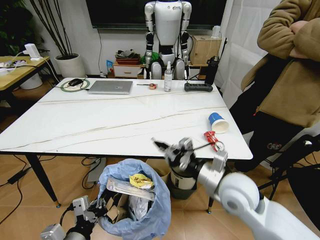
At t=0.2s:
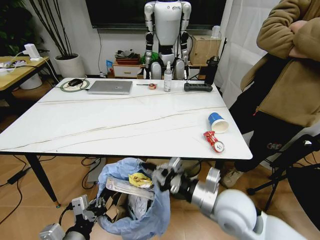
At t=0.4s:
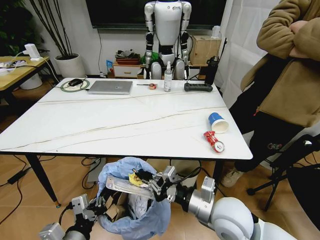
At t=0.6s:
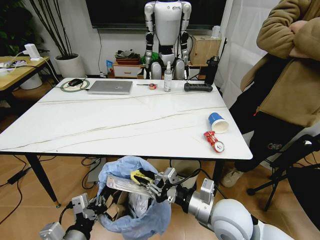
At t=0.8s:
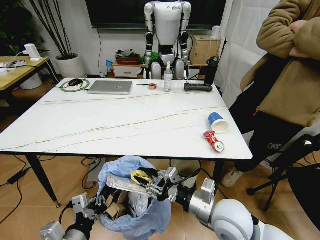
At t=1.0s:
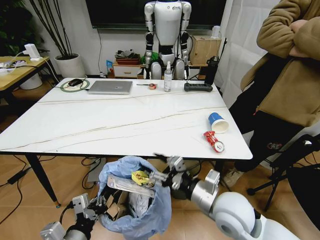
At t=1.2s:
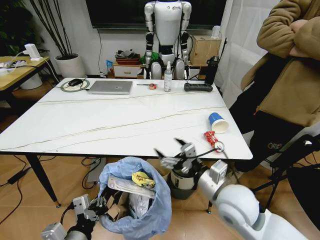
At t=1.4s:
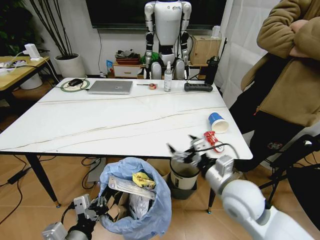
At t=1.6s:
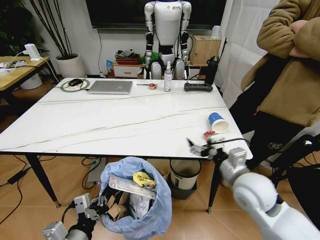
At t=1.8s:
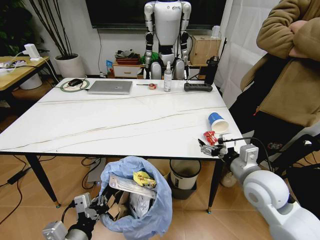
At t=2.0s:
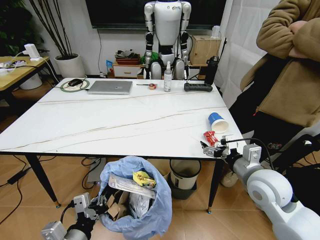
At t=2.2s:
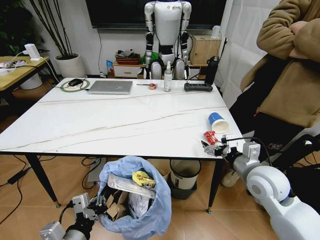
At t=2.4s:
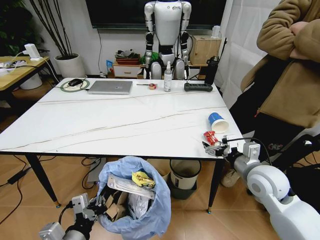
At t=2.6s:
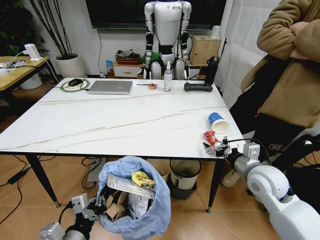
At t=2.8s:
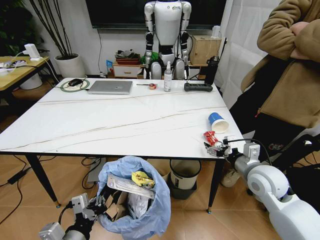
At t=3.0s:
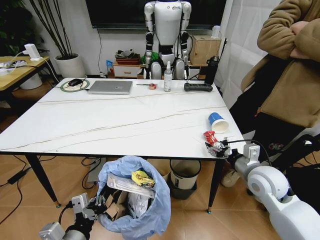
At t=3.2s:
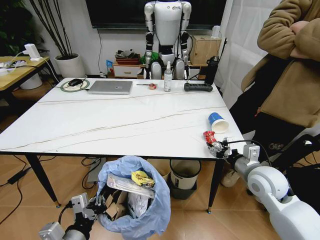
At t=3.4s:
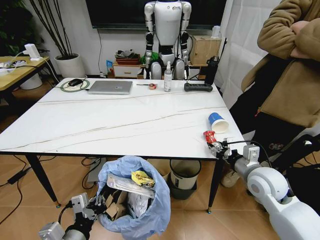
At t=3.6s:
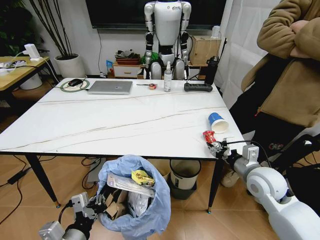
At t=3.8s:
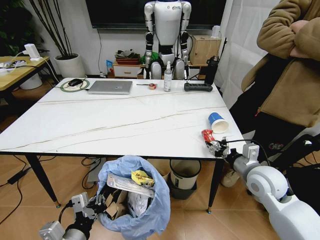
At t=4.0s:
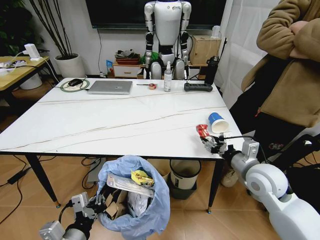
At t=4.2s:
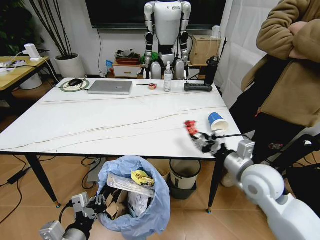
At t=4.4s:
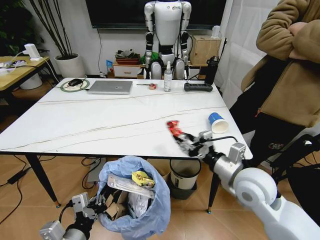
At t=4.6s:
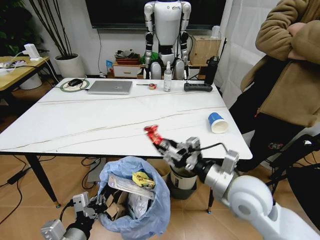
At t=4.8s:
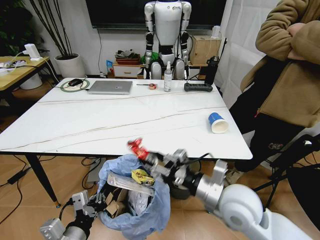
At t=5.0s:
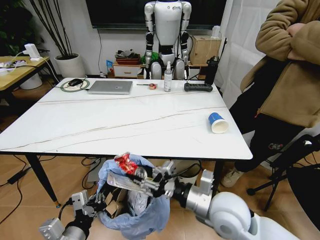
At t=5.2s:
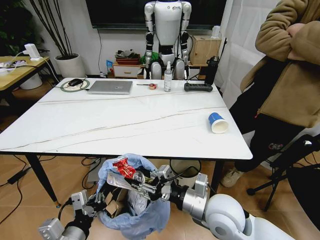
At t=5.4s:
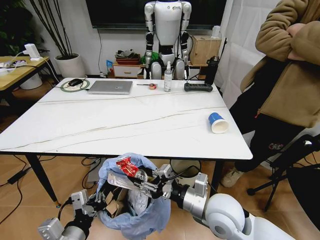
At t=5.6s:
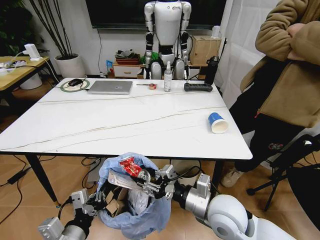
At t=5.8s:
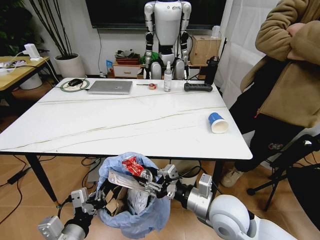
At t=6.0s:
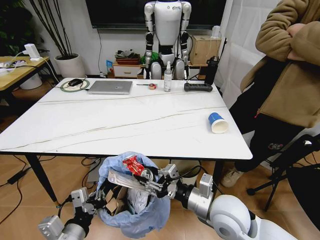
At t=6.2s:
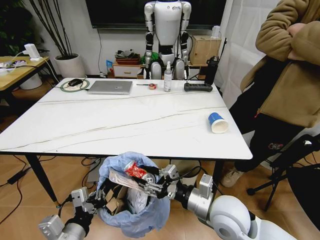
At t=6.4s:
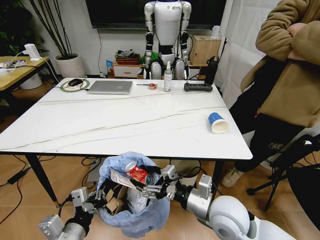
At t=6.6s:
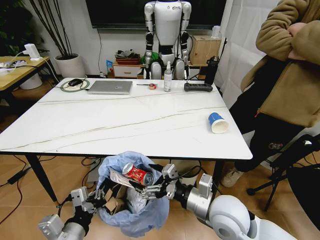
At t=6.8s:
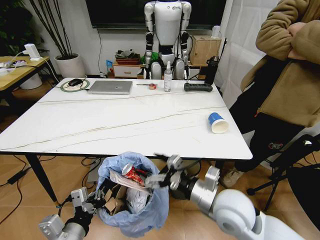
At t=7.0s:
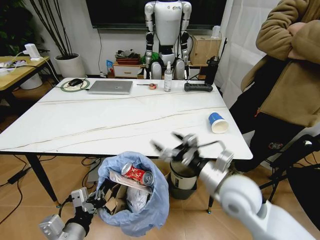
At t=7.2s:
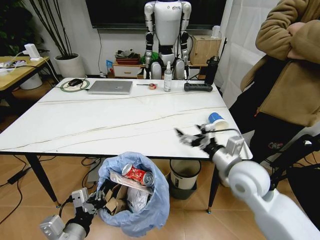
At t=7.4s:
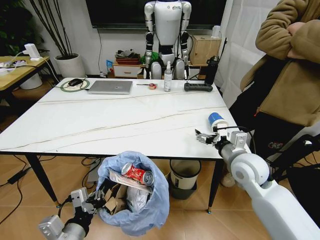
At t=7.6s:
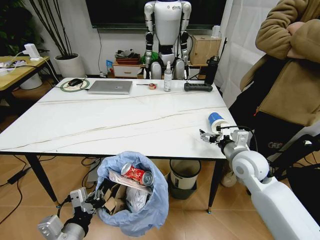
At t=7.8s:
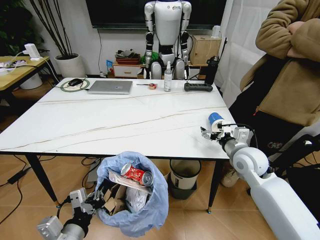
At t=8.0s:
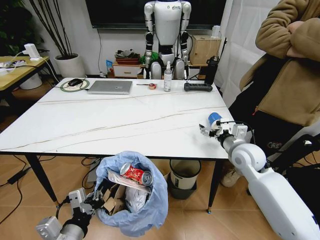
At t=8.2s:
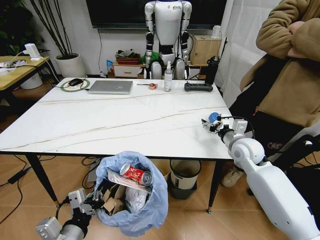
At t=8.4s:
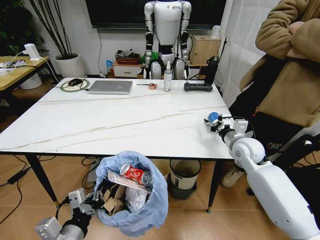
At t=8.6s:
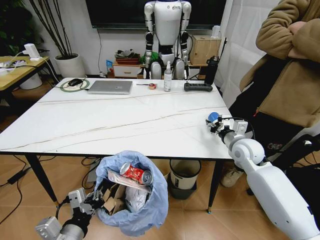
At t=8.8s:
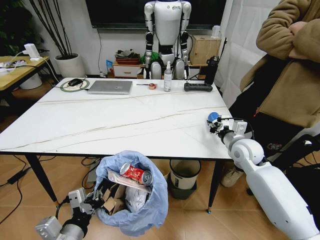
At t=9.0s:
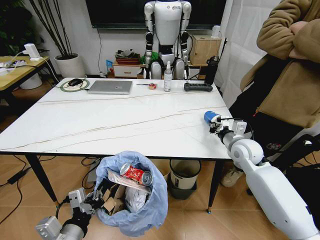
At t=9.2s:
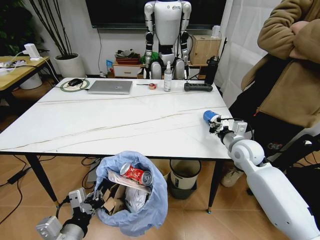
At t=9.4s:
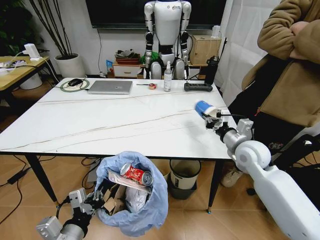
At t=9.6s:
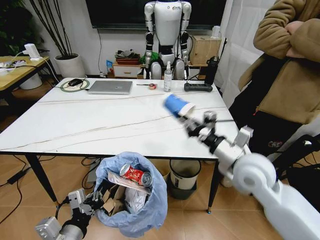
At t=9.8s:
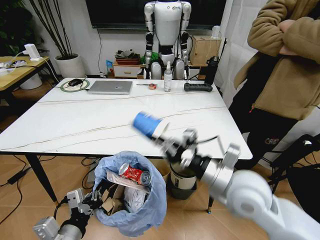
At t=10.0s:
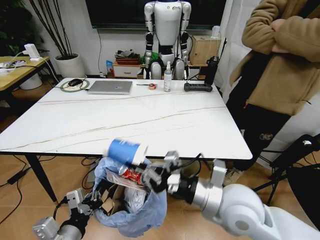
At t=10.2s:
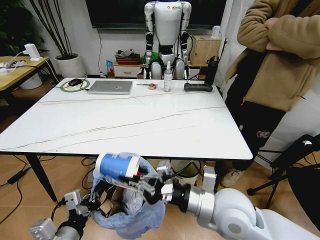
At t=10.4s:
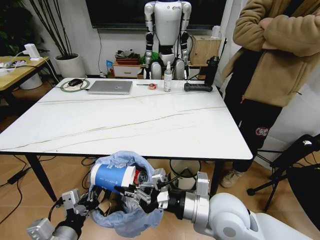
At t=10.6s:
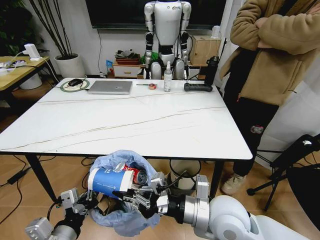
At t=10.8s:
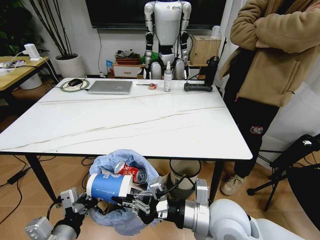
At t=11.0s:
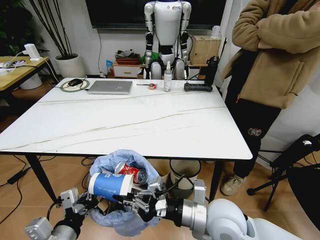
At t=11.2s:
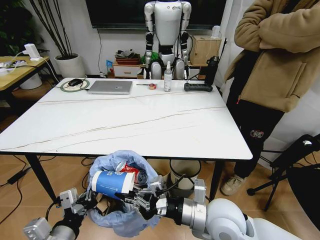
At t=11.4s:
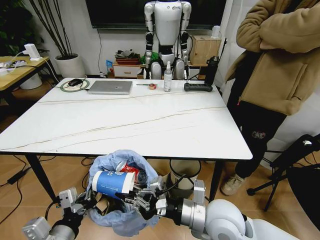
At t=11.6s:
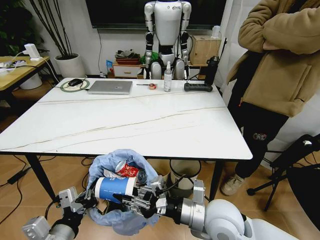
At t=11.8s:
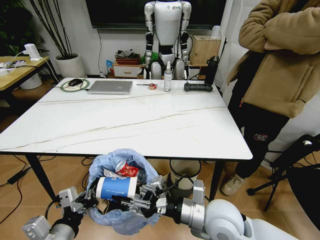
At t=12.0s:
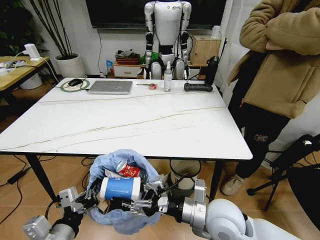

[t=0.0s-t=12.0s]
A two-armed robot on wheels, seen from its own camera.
Task of the whole recording: Pick up the trash bin and place the trash from the table into it.
t=0.0s to t=1.6s: The right gripper opens up.
t=1.6s to t=3.0s: The right gripper is displaced to the right by about 5 cm.
t=3.0s to t=4.4s: The right gripper moves to the left, about 10 cm.
t=4.4s to t=6.0s: The right gripper goes roughly 10 cm to the left and backward.
t=6.0s to t=7.6s: The right gripper travels forward and to the right by some 15 cm, and opens.
t=7.6s to t=9.0s: The right gripper moves forward, some 5 cm, and closes.
t=9.0s to t=10.4s: The right gripper moves backward and to the left, some 25 cm.
t=10.4s to t=12.0s: The right gripper opens.

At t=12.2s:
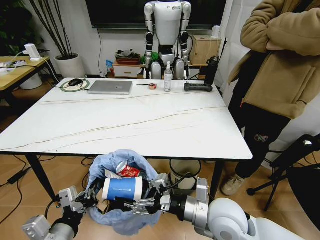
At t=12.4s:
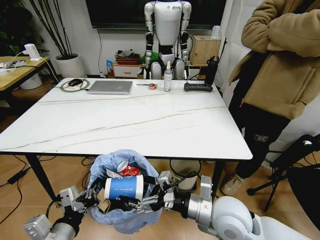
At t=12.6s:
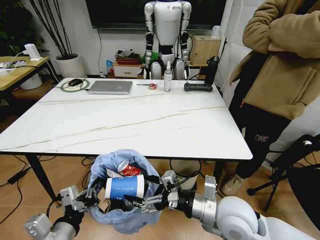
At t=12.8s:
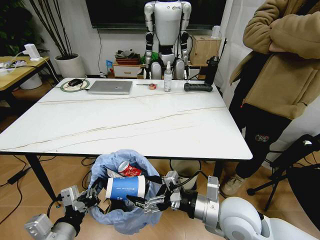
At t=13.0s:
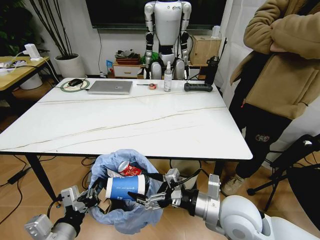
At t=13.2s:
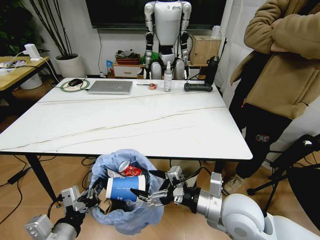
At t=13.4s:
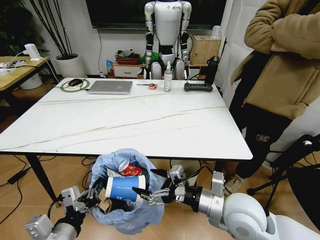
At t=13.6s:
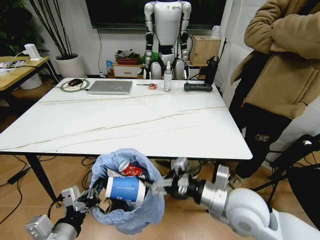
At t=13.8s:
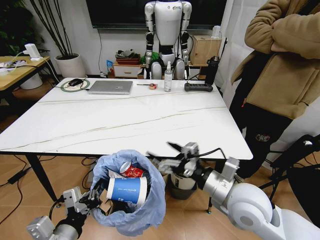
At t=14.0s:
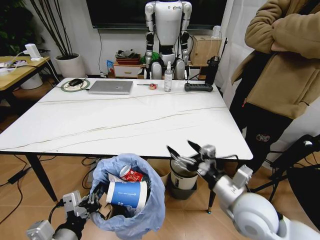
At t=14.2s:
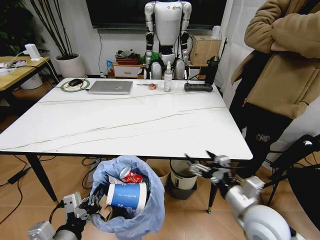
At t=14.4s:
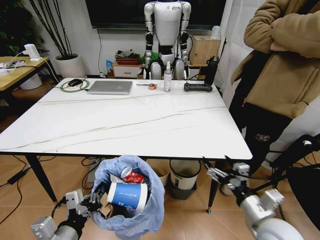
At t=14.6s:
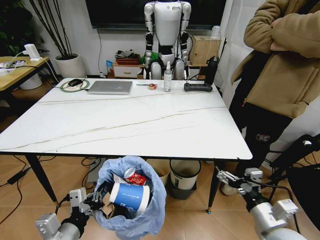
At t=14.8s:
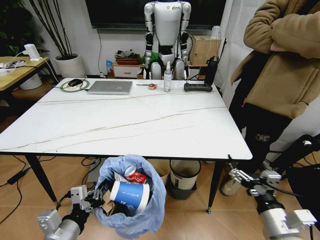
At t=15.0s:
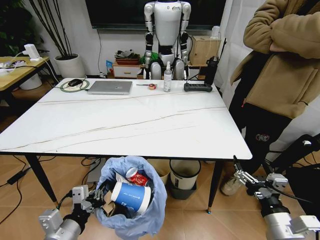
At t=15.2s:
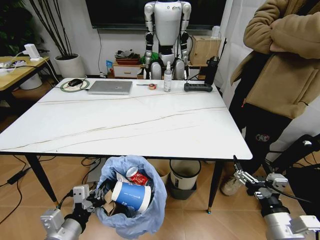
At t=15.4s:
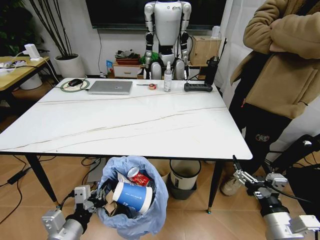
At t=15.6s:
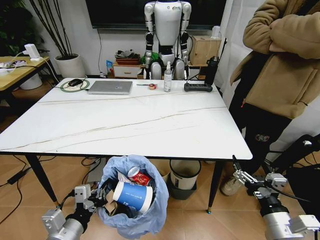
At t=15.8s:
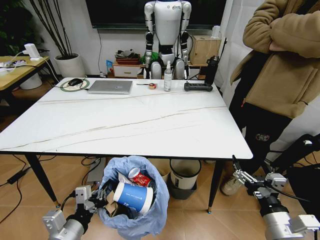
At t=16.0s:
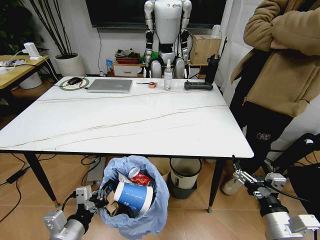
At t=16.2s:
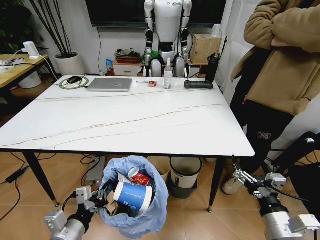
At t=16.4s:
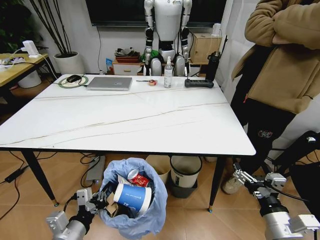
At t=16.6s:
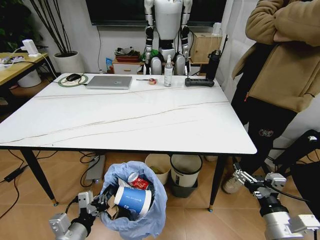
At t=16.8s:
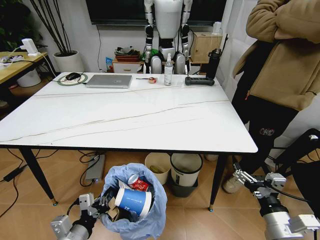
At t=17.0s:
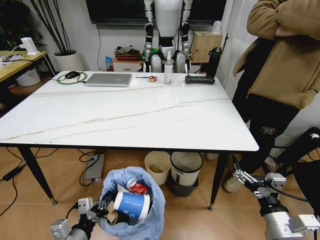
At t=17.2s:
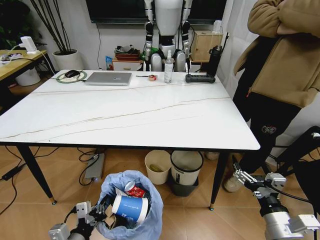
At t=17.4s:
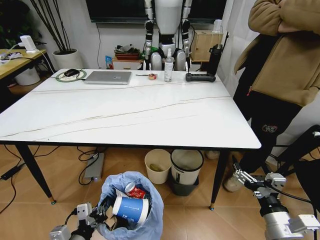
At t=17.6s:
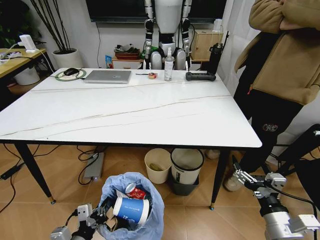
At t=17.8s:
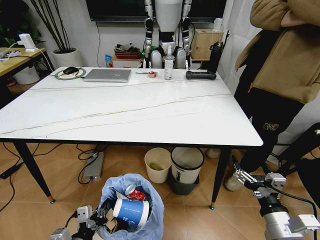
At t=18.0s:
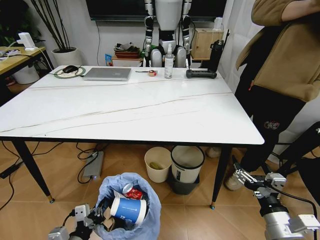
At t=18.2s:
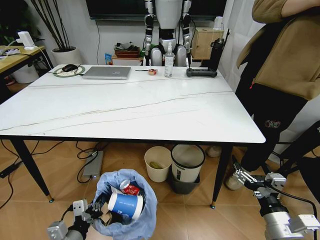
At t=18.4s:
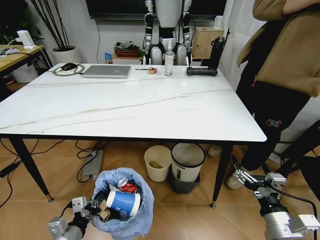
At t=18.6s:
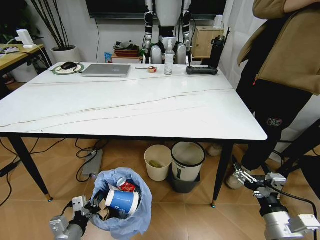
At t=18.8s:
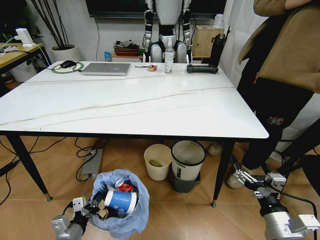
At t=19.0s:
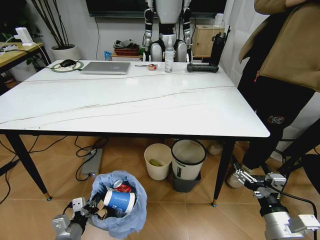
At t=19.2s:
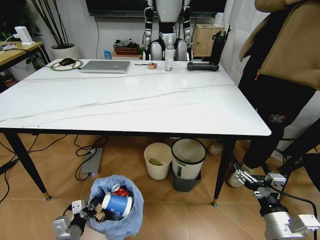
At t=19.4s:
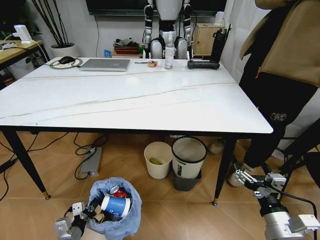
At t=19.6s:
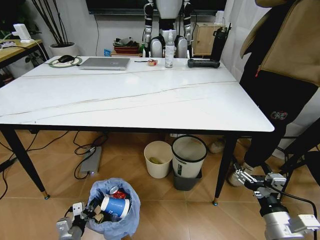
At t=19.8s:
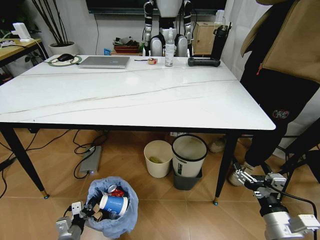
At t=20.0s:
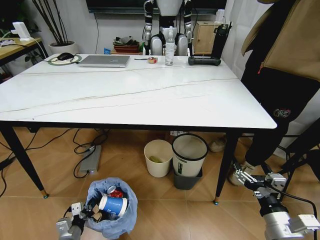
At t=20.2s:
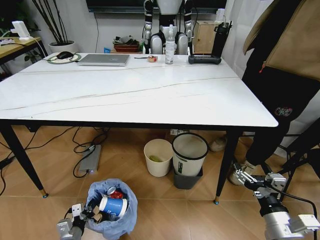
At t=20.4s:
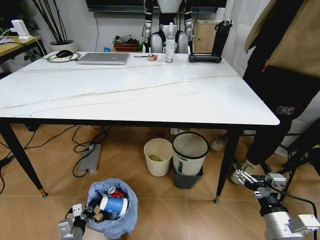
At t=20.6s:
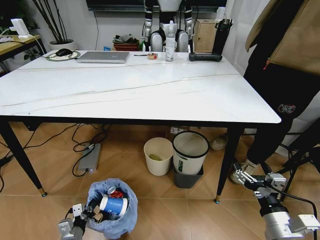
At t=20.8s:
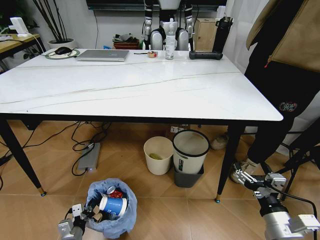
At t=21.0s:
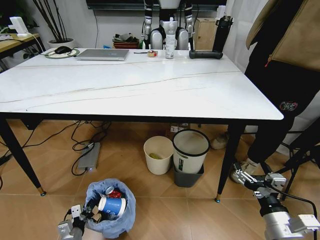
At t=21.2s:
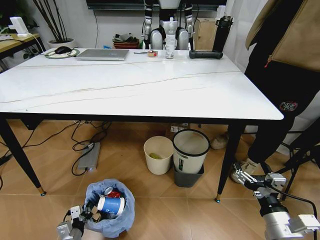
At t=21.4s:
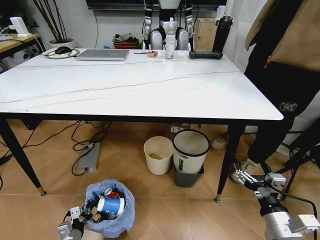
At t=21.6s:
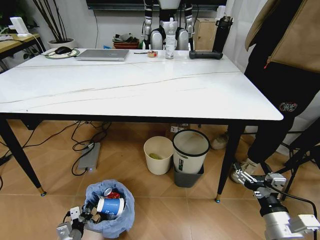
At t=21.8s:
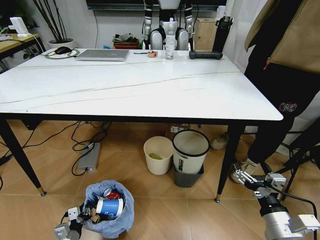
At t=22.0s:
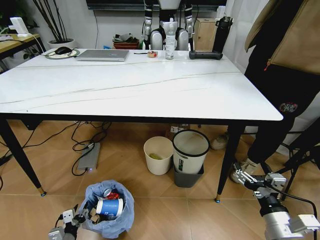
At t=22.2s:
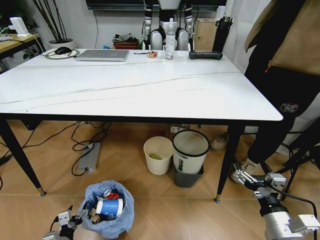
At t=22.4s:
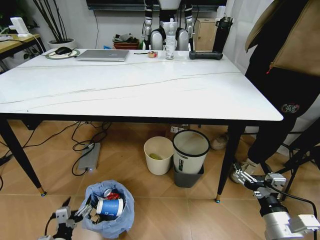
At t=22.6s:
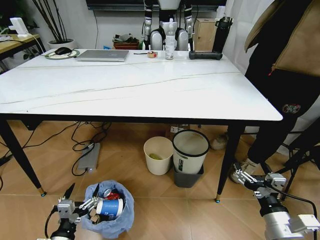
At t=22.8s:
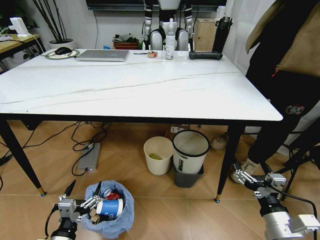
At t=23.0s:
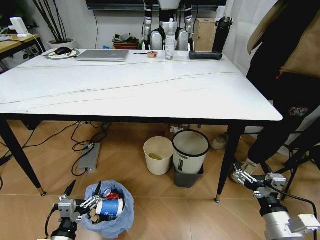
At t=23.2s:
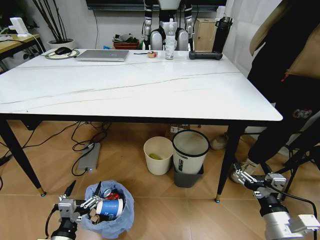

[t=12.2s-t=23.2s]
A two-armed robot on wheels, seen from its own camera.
Task of the whole recording: Pick up the trash bin and place the trash from the table into it.
t=12.2s to t=13.8s: The right gripper ends up roughly 5 cm from where it was.
t=13.8s to t=15.4s: The right gripper shifts about 15 cm to the right, backward and downward.
t=15.4s to t=17.0s: The left gripper heads downward, covering approximately 5 cm.
t=18.4s to t=20.0s: The left gripper heads downward and to the left, covering about 15 cm.
t=21.6s to t=23.2s: The left gripper travels upward by some 15 cm, and opens up.
